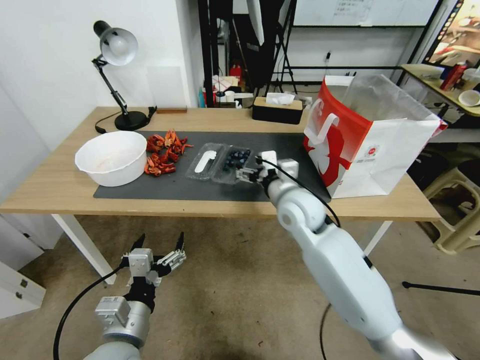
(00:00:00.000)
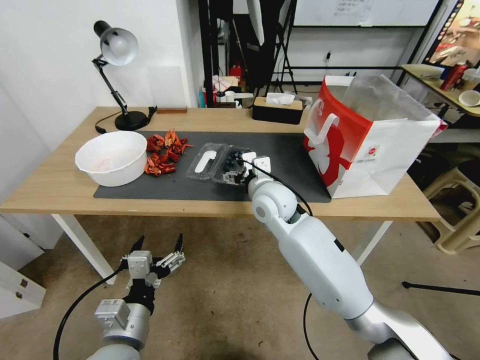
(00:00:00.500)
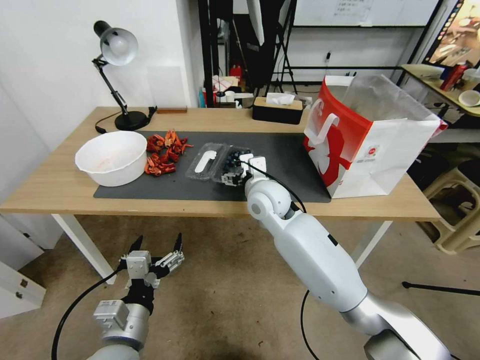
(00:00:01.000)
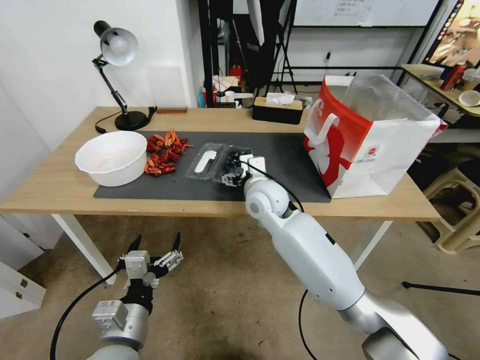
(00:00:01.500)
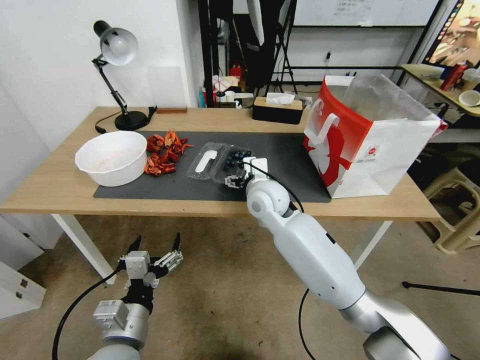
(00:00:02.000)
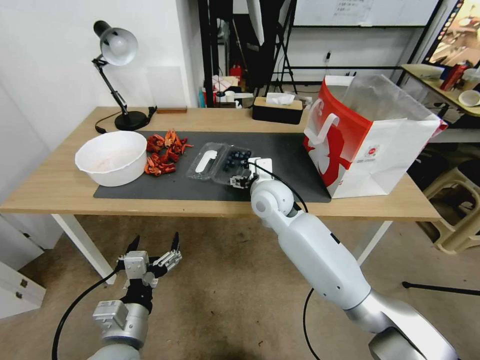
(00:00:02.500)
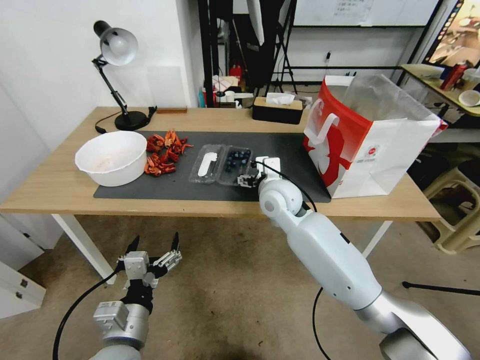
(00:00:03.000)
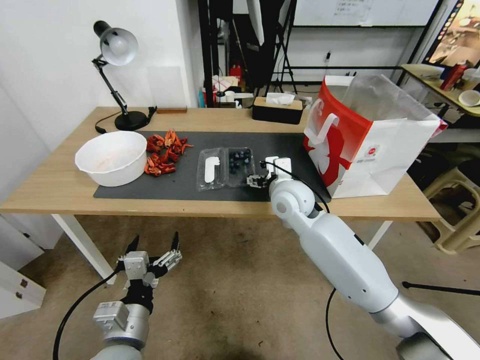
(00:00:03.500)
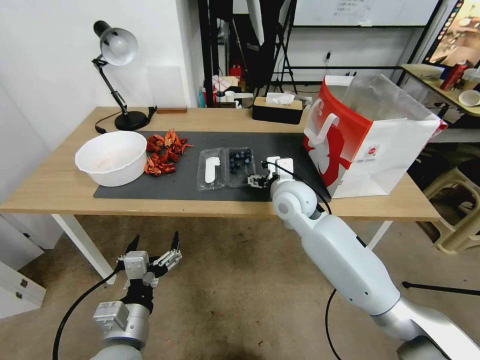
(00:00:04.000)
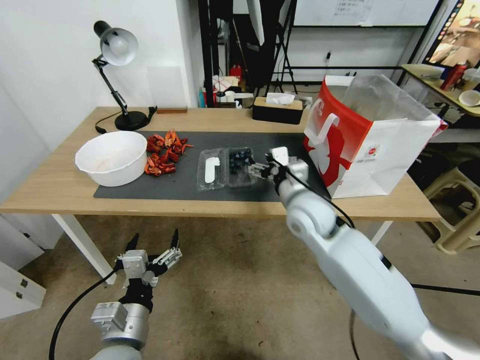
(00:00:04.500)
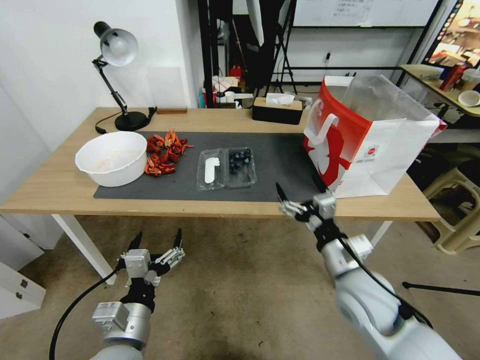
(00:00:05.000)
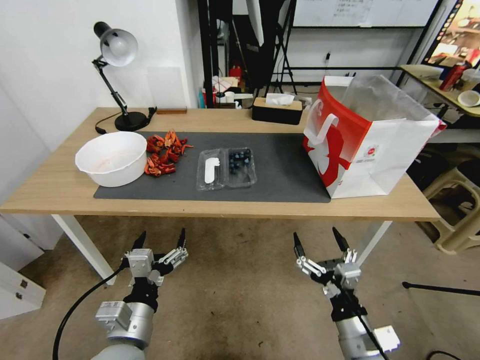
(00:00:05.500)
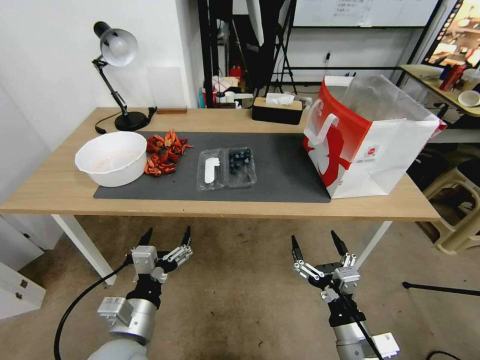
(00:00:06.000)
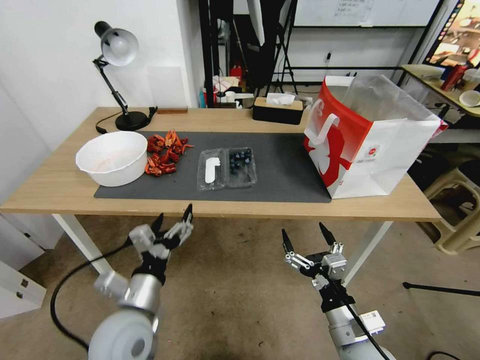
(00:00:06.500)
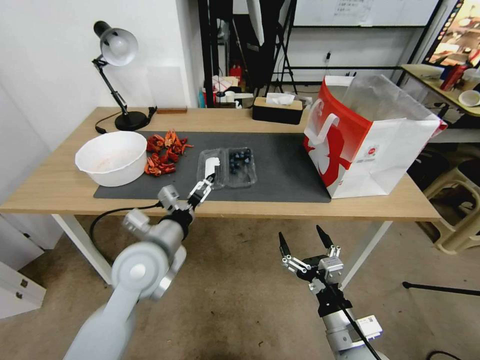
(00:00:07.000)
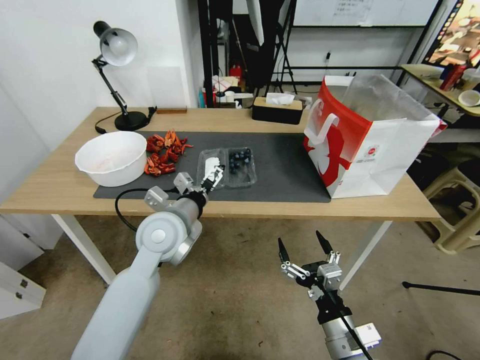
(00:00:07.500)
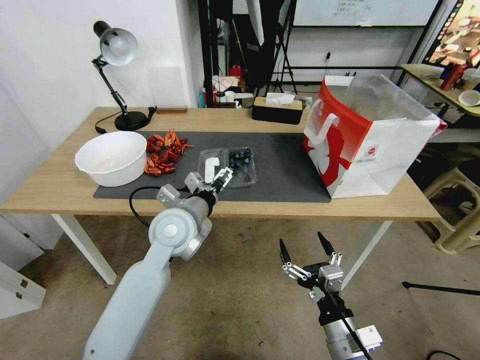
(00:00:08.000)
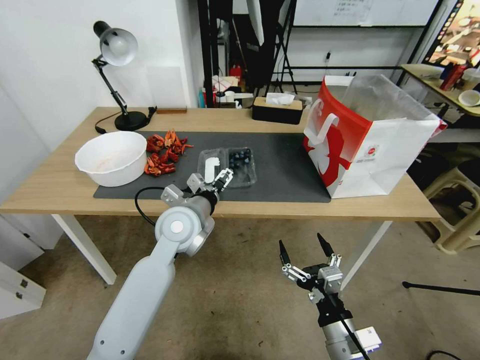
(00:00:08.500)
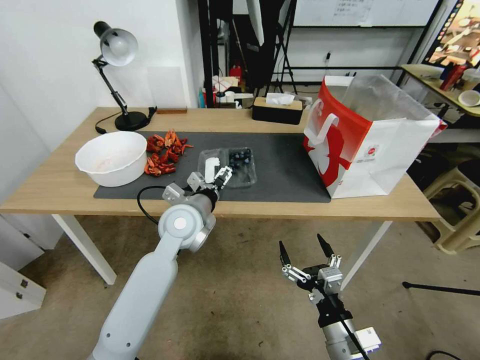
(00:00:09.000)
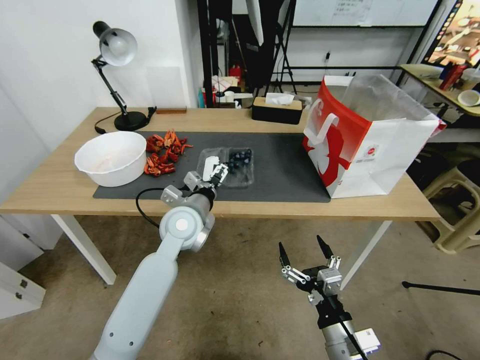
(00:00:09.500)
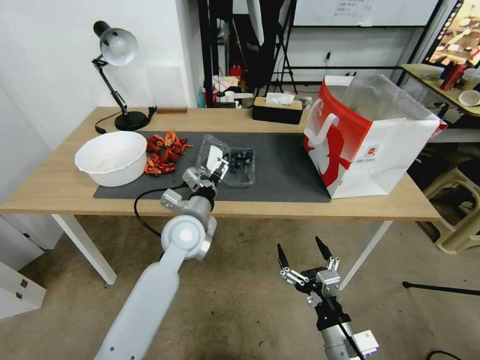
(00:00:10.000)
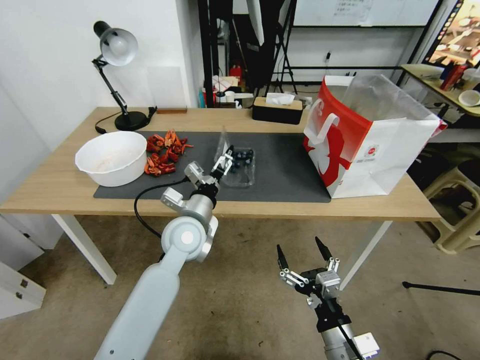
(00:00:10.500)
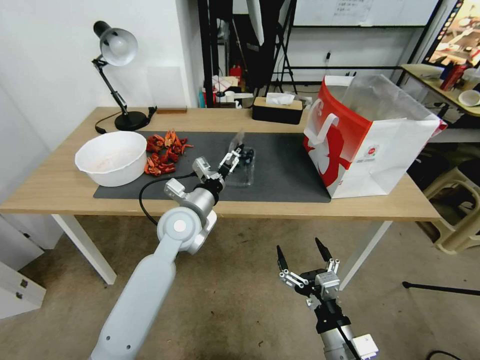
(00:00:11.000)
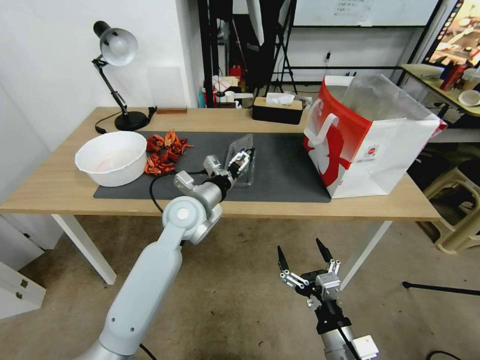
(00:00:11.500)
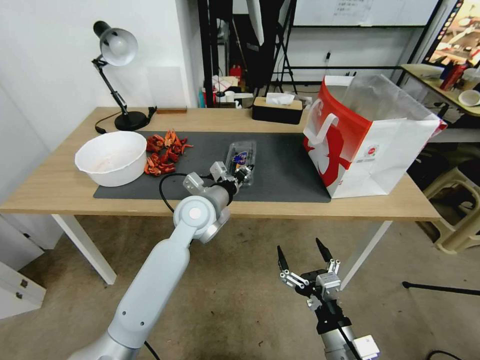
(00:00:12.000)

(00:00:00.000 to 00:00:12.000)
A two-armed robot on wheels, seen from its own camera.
Task of the whole recording: Close the takeout container lid, then place the container into the takeout bag.
00:00:00.000 - 00:00:02.000: The right gripper heads to the left, covering approximately 5 cm.
00:00:02.000 - 00:00:04.000: The right gripper is displaced to the right by roughly 5 cm.
00:00:04.000 - 00:00:06.000: The right gripper moves backward and downward, some 35 cm.
00:00:06.000 - 00:00:08.000: The left gripper travels forward and upward by some 25 cm.
00:00:08.000 - 00:00:10.000: The grippers make only small movements.
00:00:10.000 - 00:00:12.000: The left gripper ends up roughly 5 cm from where it was, and closes its fingers.

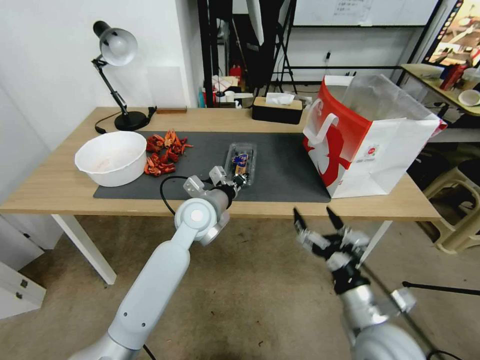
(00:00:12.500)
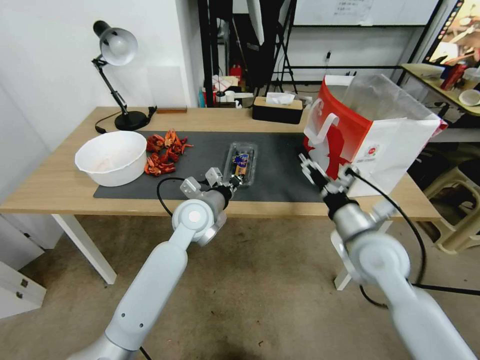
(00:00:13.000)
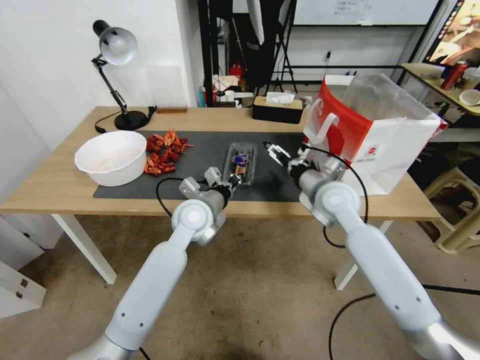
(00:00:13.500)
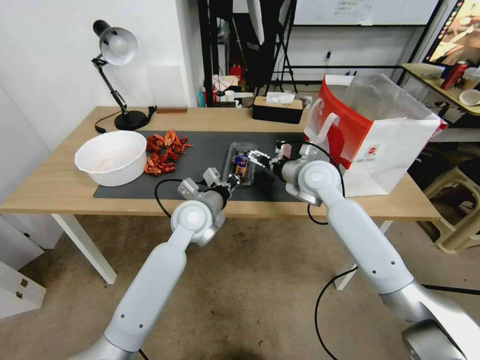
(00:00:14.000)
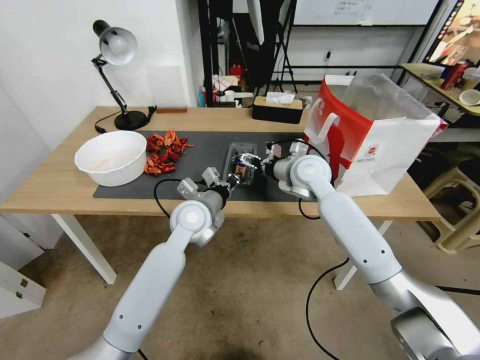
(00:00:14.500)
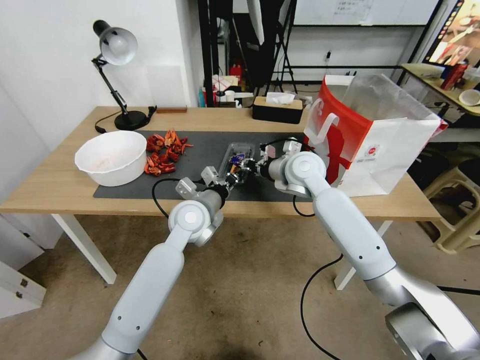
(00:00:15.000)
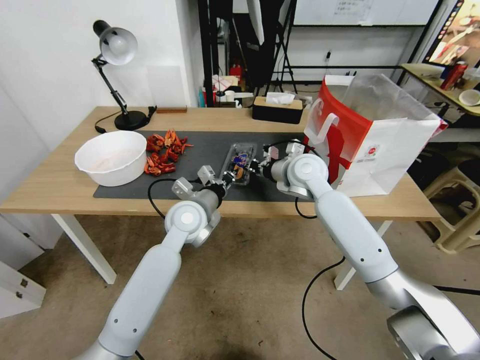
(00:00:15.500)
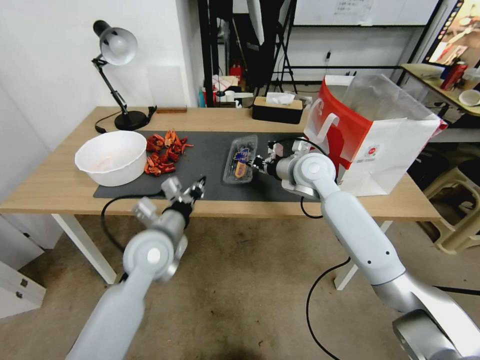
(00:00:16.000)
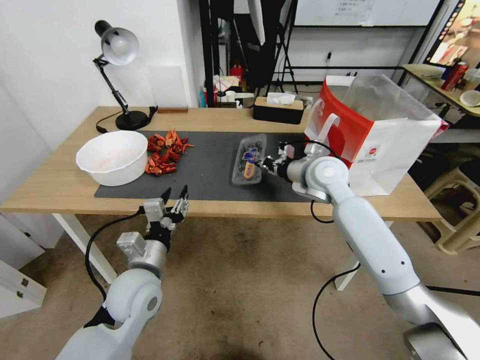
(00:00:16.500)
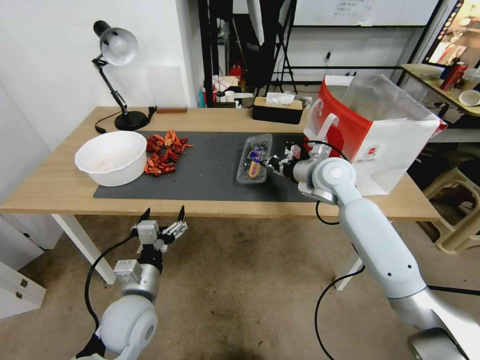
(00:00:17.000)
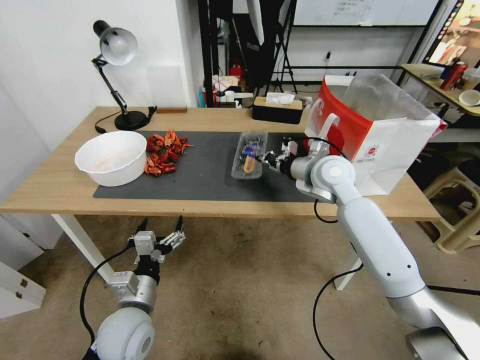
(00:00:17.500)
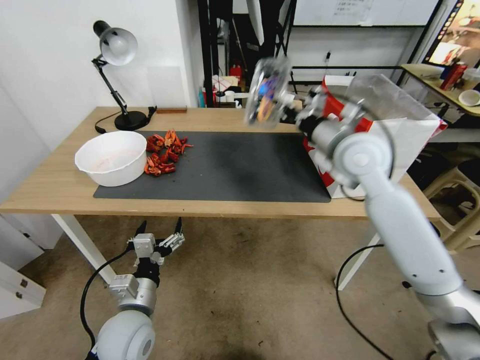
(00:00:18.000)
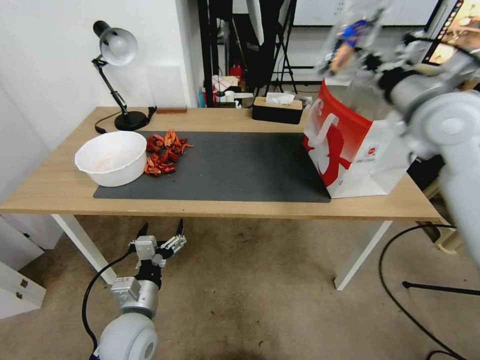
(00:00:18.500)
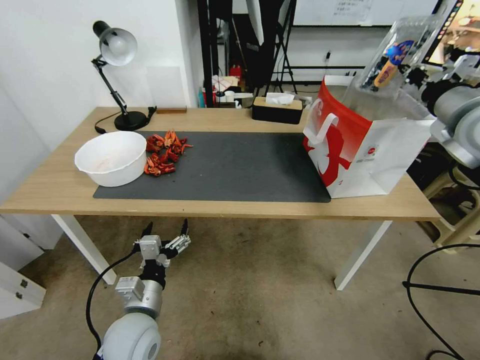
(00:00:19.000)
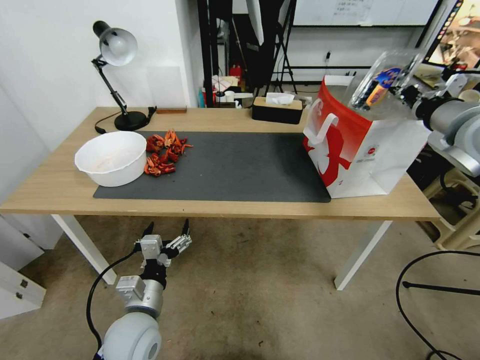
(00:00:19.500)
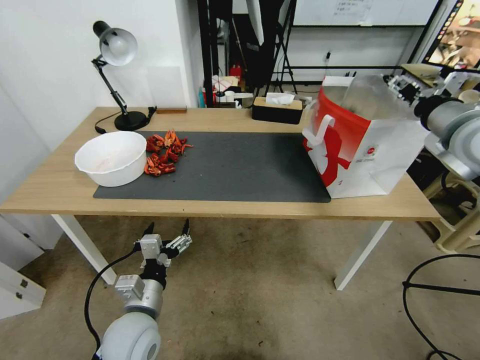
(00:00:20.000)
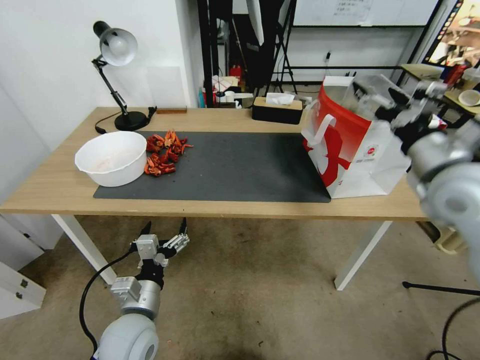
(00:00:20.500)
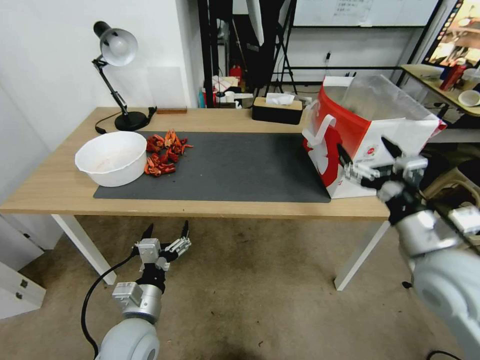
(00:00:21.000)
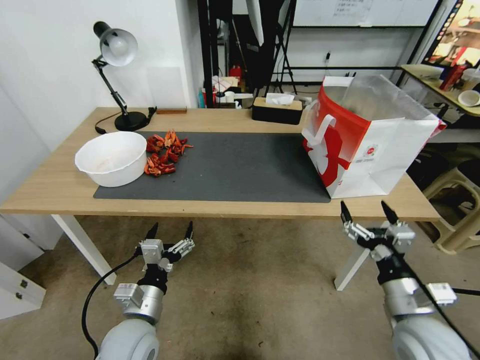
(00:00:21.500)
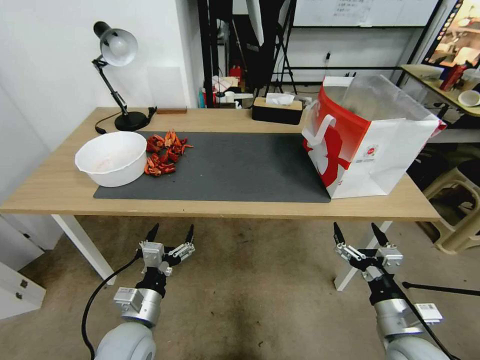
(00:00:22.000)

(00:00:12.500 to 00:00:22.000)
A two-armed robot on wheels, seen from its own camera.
Task of the whole recording: Close the takeout container lid, then place the container into the takeout bag.
00:00:12.500 - 00:00:14.500: The right gripper heads forward, covering approximately 35 cm.
00:00:14.500 - 00:00:16.500: The right gripper closes up. Meanwhile the left gripper moves backward and to the left, roughly 15 cm, and opens up.
00:00:16.500 - 00:00:18.000: The left gripper shifts approximately 10 cm backward and downward, and opens up. The right gripper heads upward, covering about 10 cm.
00:00:18.000 - 00:00:20.000: The right gripper heads to the right and upward, covering roughly 20 cm, and opens up.
00:00:20.000 - 00:00:22.000: The right gripper travels downward and backward by approximately 40 cm, and opens.
